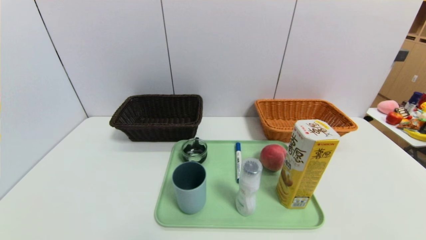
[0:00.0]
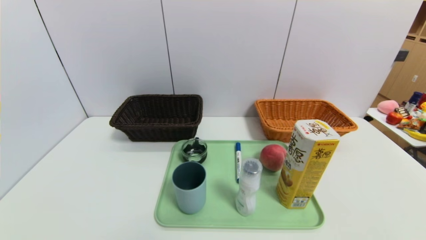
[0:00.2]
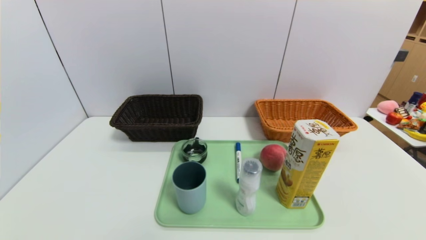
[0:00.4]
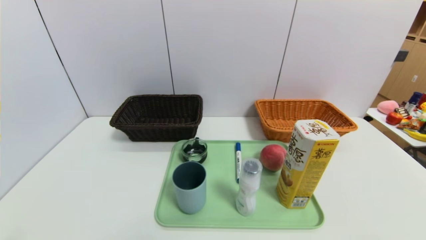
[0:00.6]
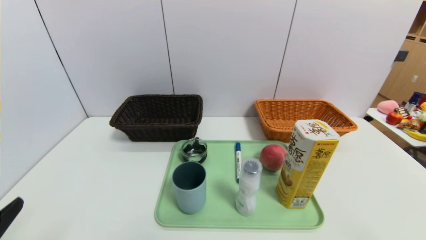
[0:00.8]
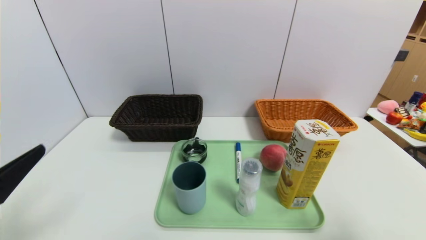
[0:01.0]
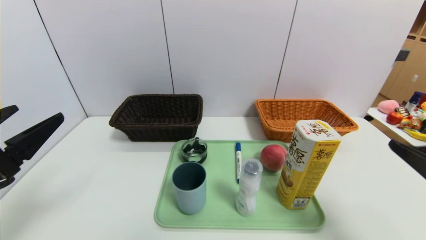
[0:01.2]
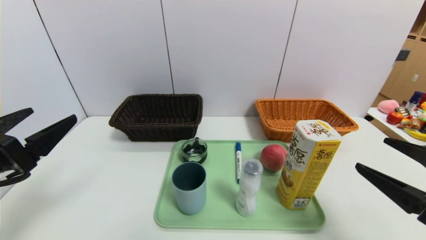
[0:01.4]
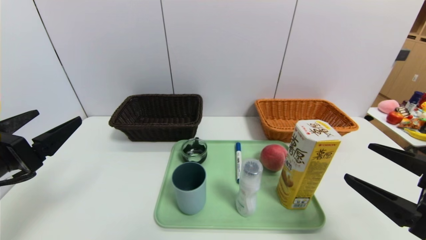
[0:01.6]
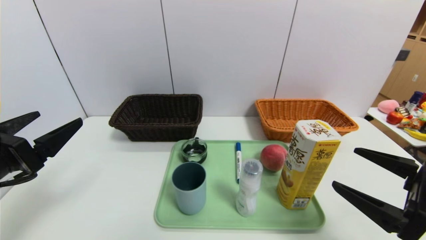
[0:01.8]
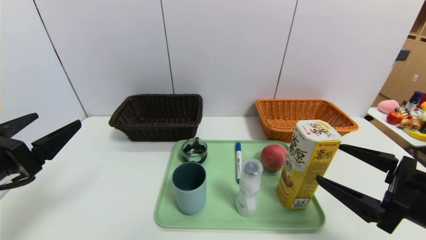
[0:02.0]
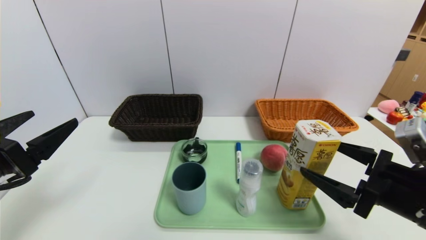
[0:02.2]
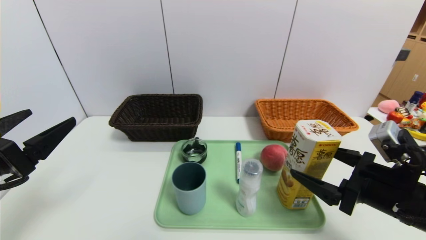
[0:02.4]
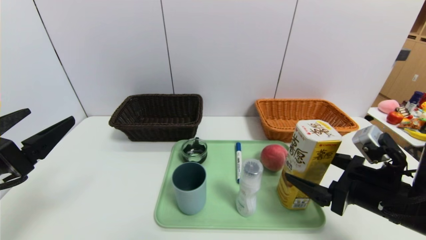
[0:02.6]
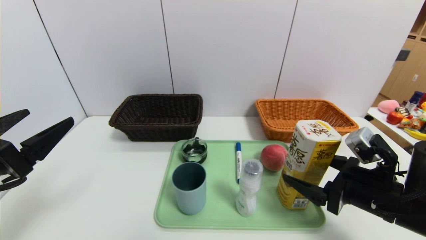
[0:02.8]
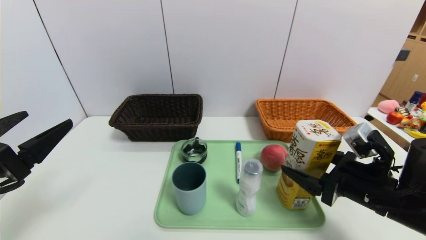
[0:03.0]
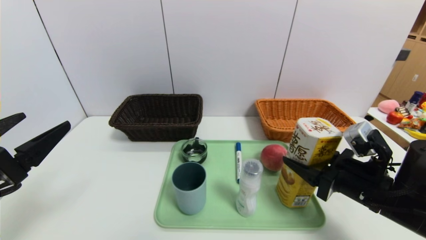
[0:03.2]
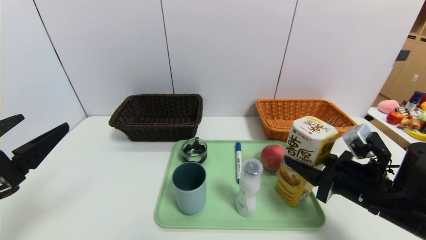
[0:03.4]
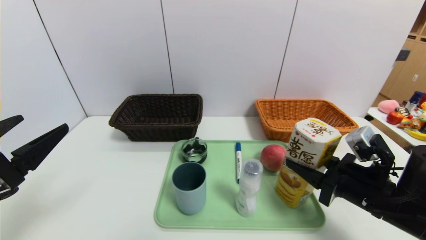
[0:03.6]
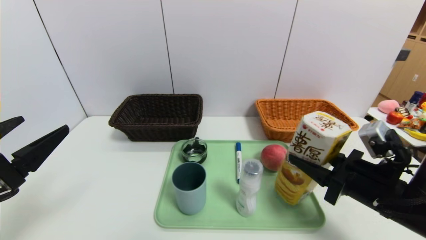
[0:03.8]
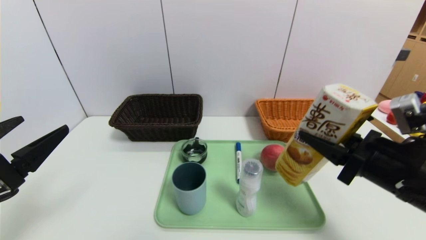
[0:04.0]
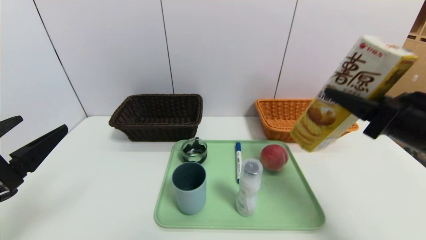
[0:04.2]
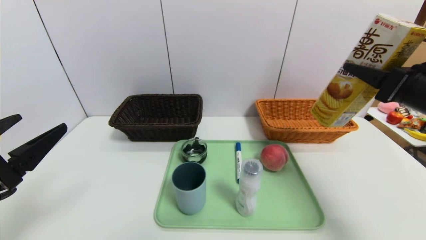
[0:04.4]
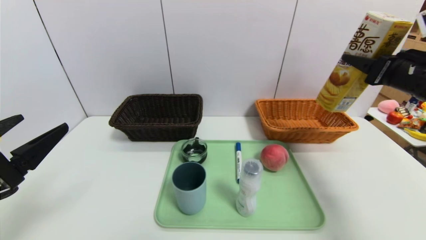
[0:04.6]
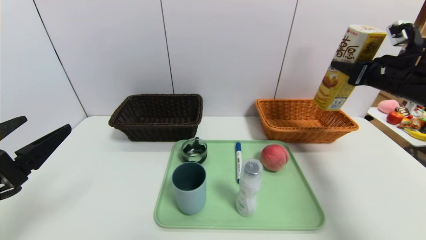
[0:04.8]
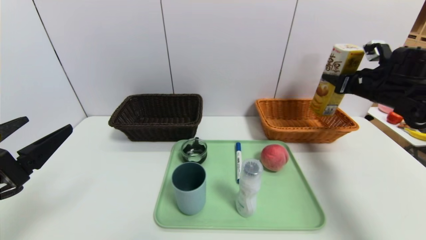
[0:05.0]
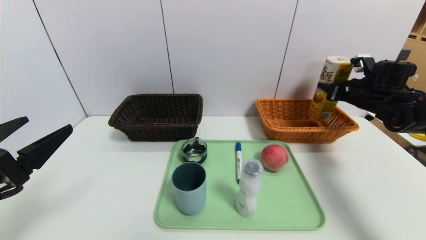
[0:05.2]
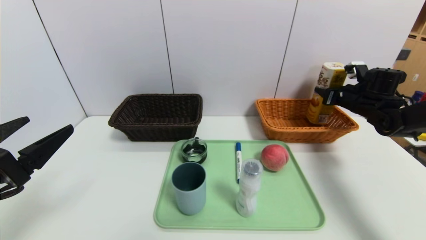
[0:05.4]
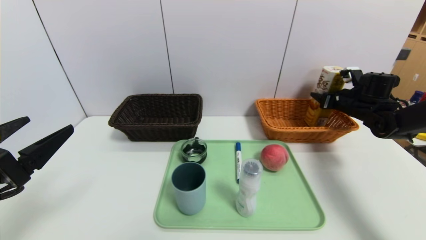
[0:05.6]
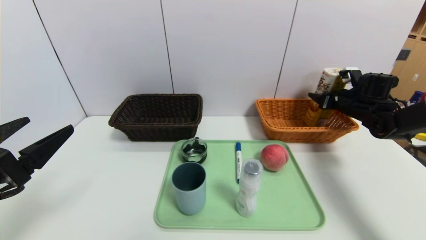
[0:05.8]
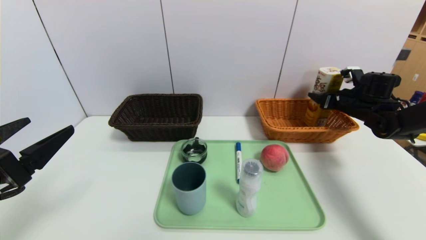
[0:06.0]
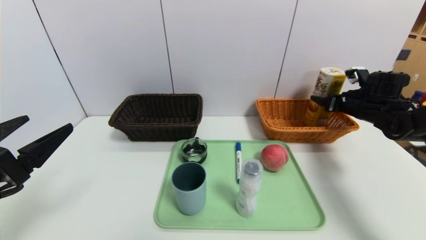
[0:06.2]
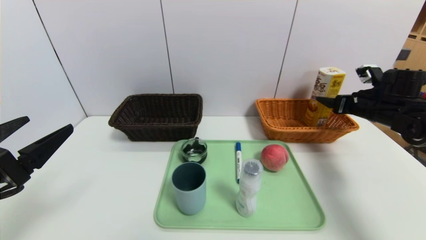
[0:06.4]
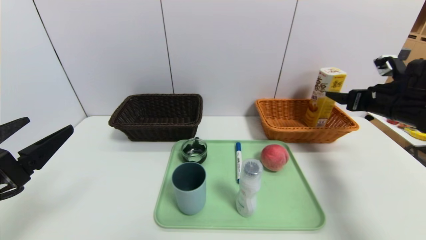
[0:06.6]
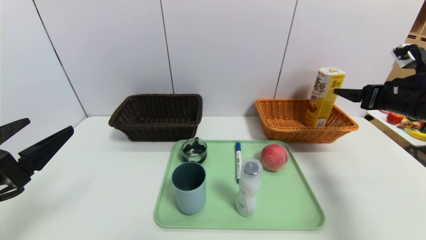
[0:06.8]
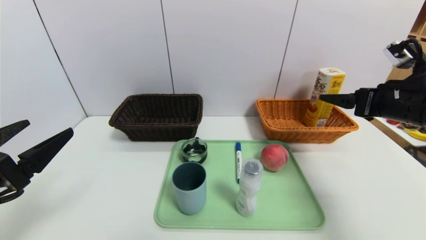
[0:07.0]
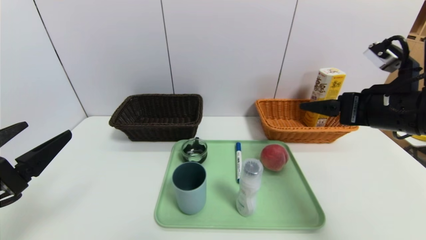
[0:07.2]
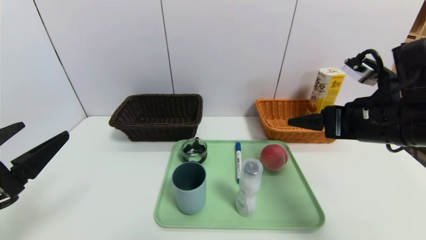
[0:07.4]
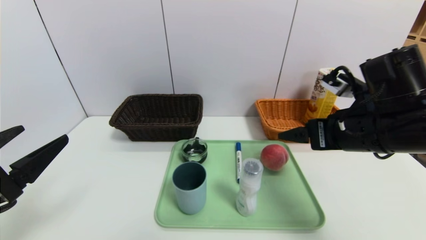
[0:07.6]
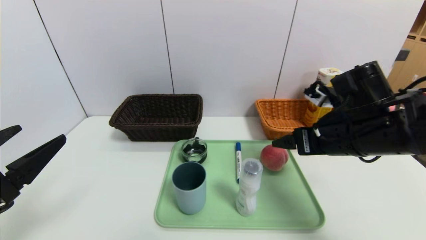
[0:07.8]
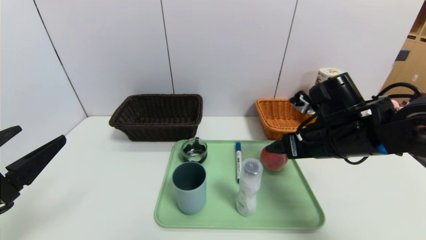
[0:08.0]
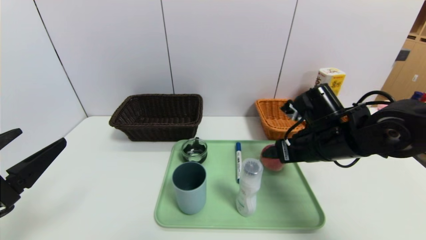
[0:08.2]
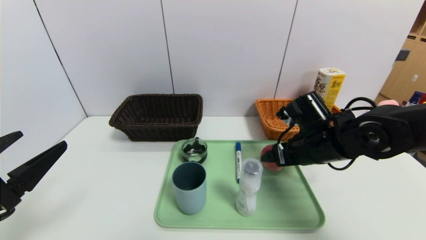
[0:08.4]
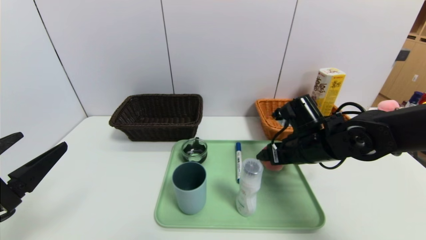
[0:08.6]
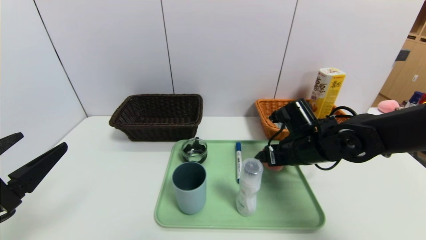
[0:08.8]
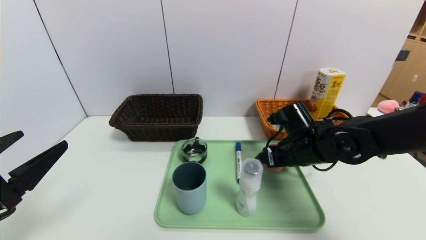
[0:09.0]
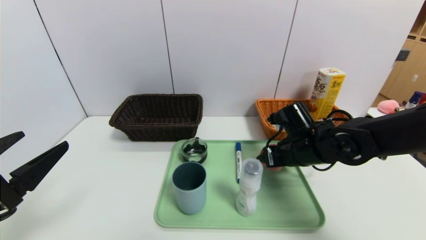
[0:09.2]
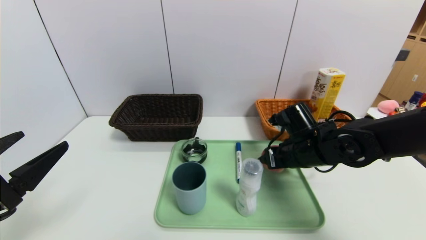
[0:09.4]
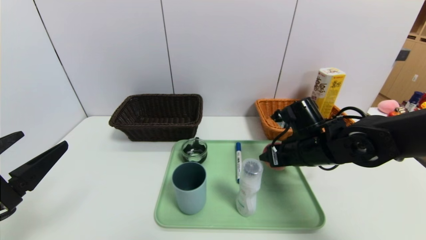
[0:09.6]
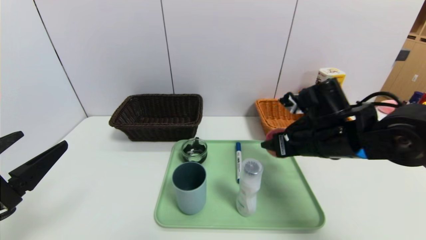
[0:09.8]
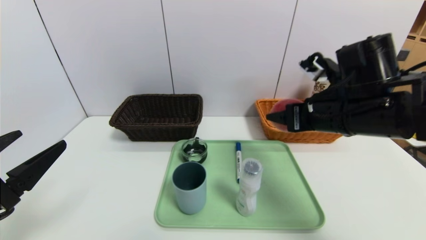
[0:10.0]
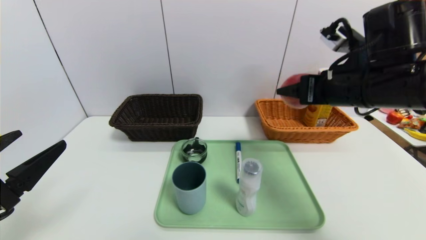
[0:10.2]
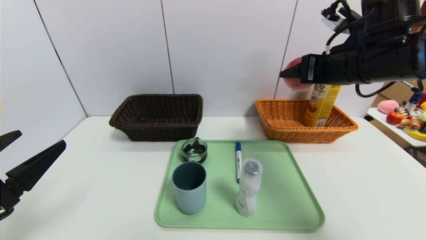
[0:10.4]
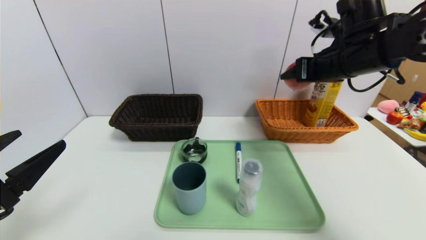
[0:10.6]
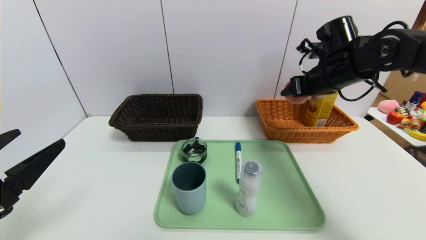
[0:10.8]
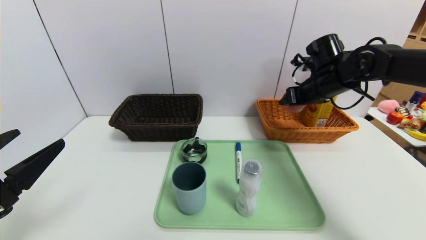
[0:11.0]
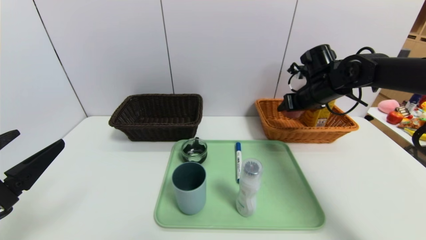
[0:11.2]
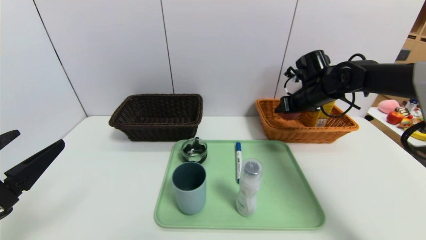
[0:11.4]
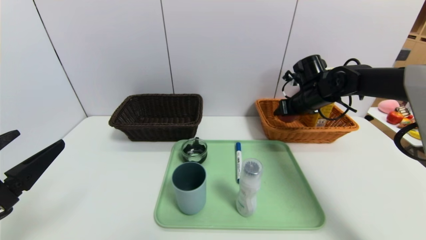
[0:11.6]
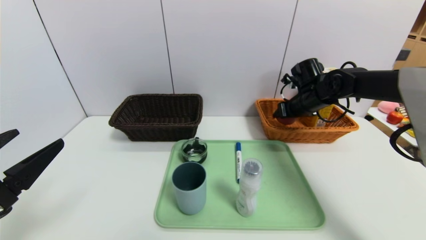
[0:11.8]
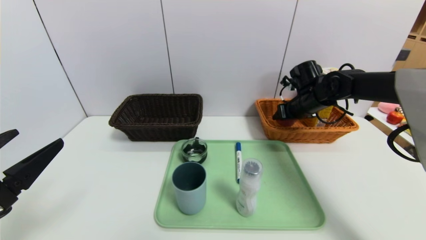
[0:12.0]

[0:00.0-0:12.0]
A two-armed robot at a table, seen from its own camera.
Task of the whole recording: place the food in the right basket with the right gripper, and place the non food items in the left basket with the left gripper.
Step, 0:00.0 to 0:05.8: Grasp the potato chips and put it in the right basket.
0:00.0 to 0:01.6: Both grippers travel together forward and upward, about 20 cm.
0:01.6 to 0:03.0: The right gripper goes approximately 10 cm forward.
0:03.0 to 0:04.4: The right gripper moves upward and to the right, some 15 cm, and closes.
0:04.4 to 0:06.0: The right gripper is displaced forward and downward by roughly 25 cm, and opens.
0:06.0 to 0:07.6: The right gripper is displaced backward and to the left by roughly 25 cm.
0:07.6 to 0:09.0: The right gripper heads downward and forward, covering roughly 15 cm.
0:09.0 to 0:10.4: The right gripper shifts about 20 cm upward.
0:10.4 to 0:12.0: The right gripper travels forward and downward by approximately 20 cm.

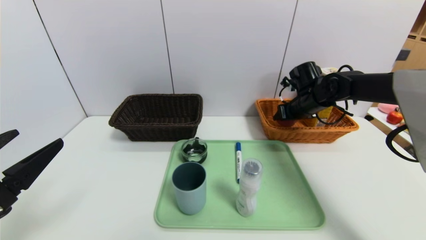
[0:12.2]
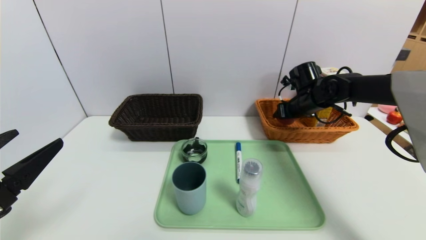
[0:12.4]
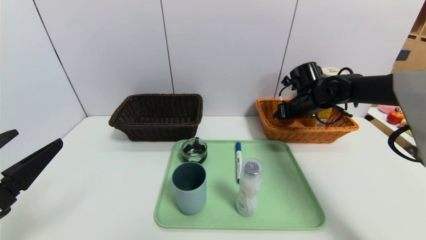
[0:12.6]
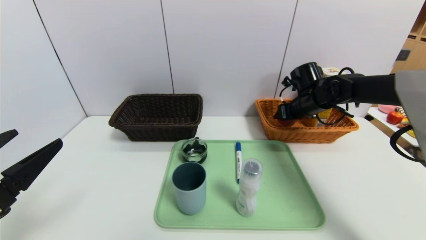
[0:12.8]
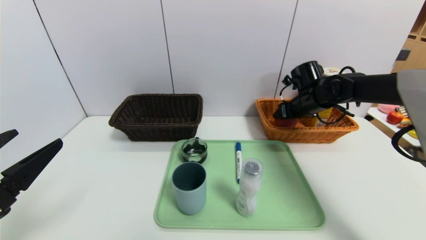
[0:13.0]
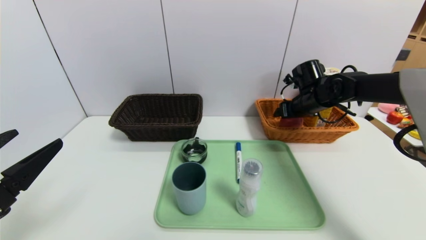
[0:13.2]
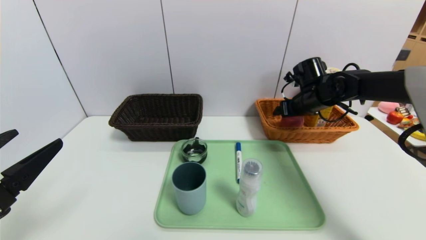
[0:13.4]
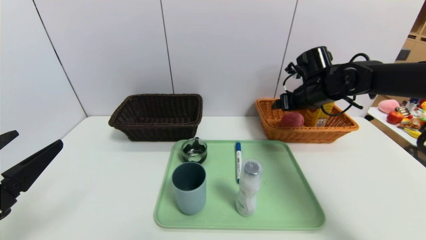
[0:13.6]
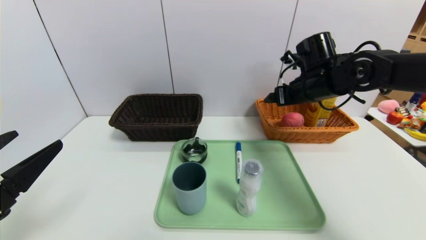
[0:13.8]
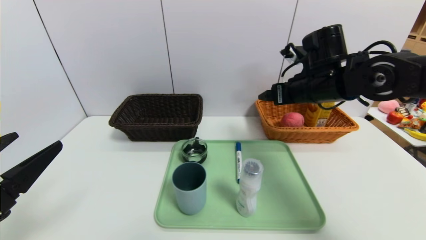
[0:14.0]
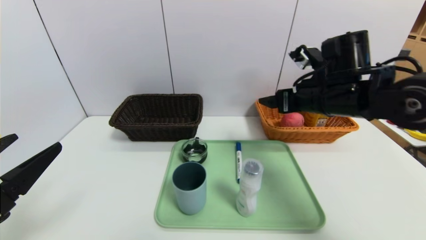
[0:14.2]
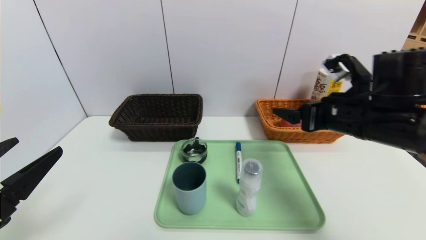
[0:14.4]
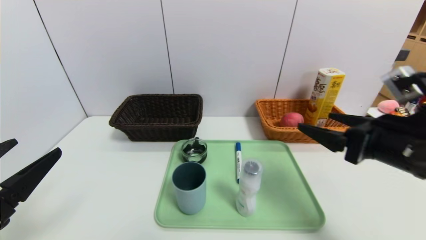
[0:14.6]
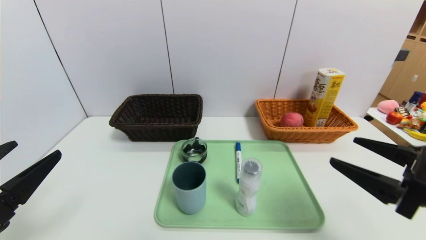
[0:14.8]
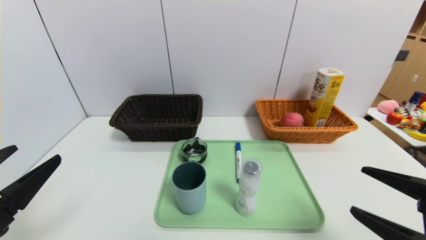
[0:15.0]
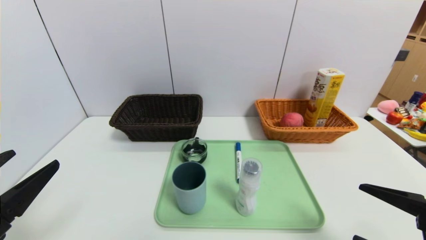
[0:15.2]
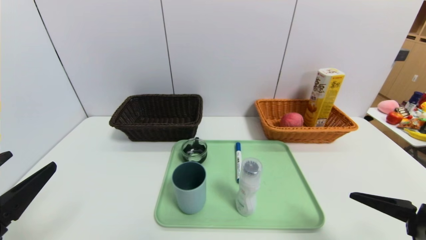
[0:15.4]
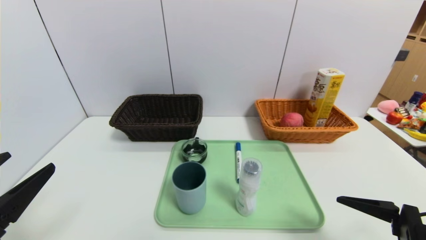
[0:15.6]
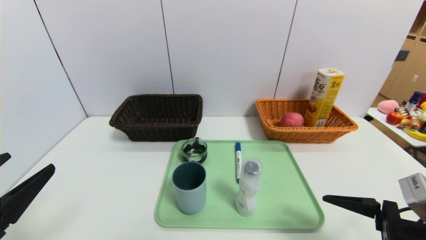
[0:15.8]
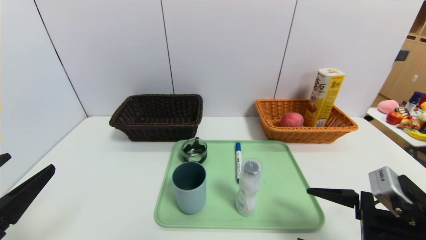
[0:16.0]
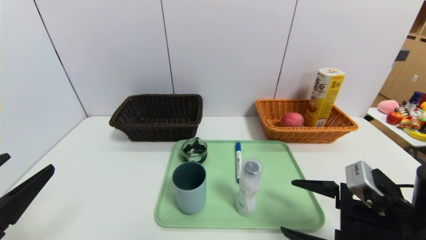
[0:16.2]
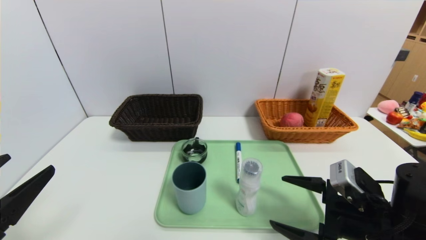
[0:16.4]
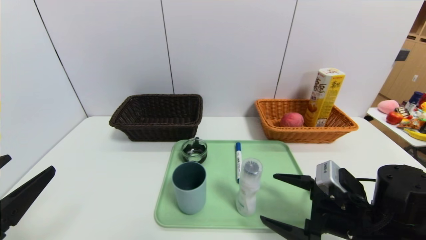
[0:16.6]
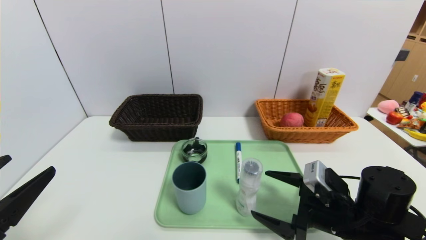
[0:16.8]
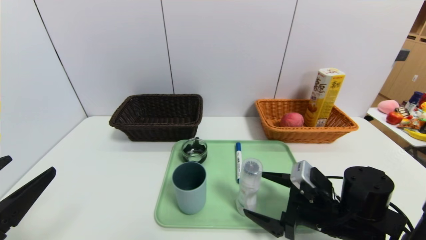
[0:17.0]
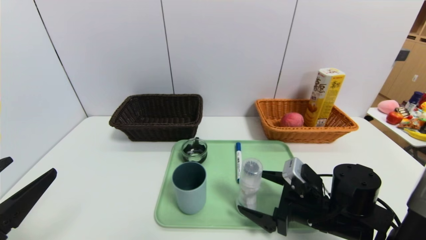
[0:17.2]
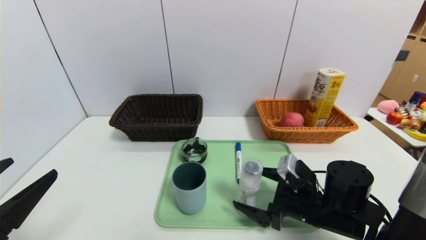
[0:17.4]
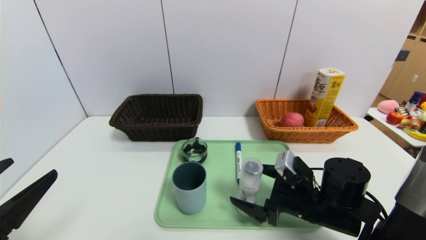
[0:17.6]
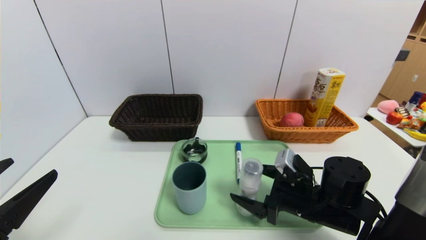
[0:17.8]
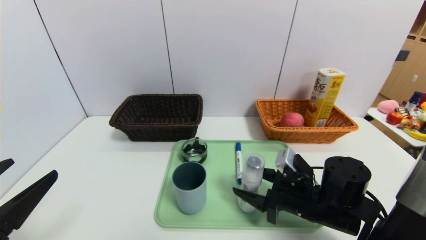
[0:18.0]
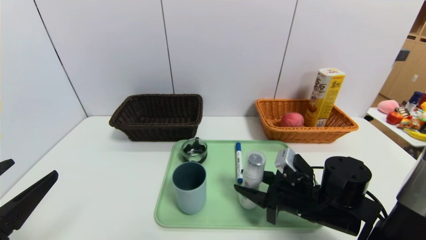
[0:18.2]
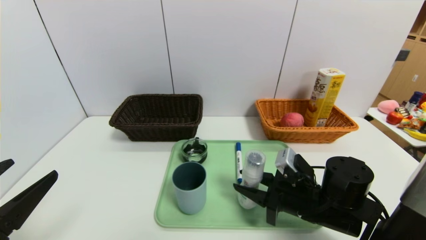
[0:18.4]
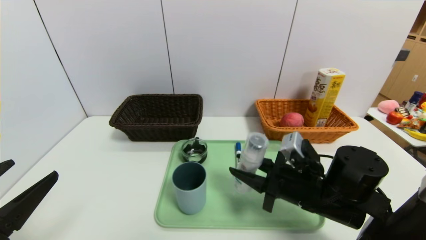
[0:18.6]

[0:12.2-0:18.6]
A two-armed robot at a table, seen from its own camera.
Task of the whole recording: place the food in the right basket with the right gripper, and place the non food items in the left basket with the left gripper.
0:12.2 to 0:13.8: The right gripper shifts approximately 10 cm upward and backward.
0:13.8 to 0:15.4: The right gripper heads backward, covering roughly 30 cm.
0:15.4 to 0:17.0: The right gripper goes roughly 15 cm forward, to the left and downward.
0:17.0 to 0:18.6: The right gripper ends up about 5 cm from where it was, and closes up.
